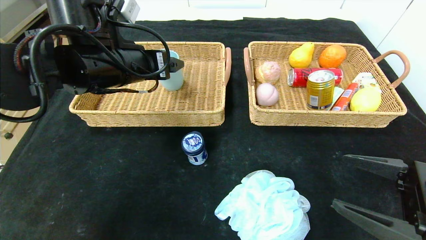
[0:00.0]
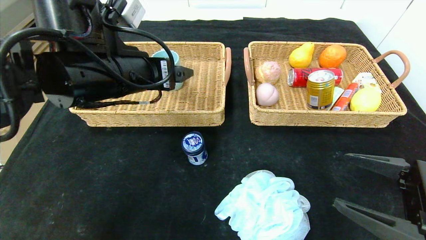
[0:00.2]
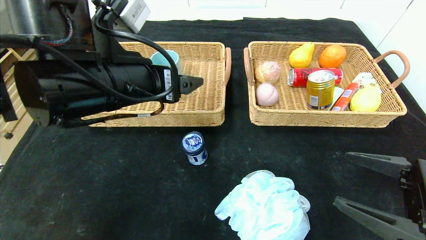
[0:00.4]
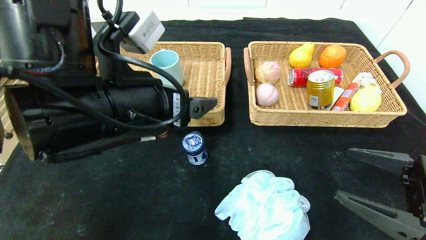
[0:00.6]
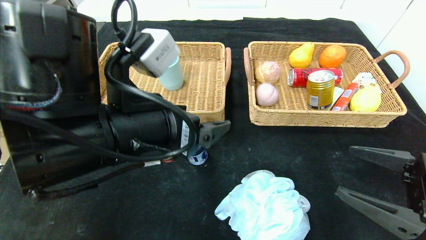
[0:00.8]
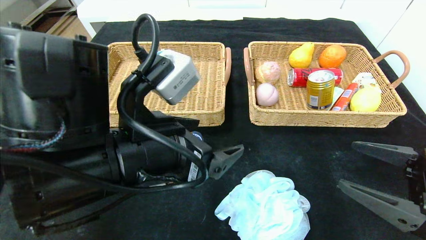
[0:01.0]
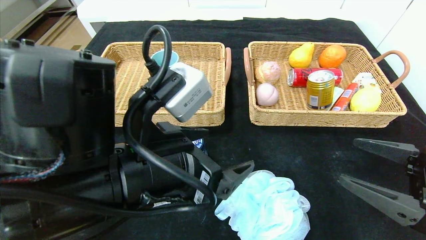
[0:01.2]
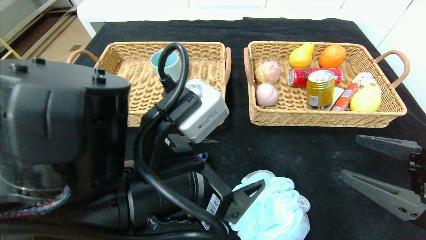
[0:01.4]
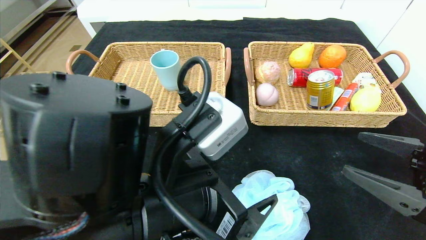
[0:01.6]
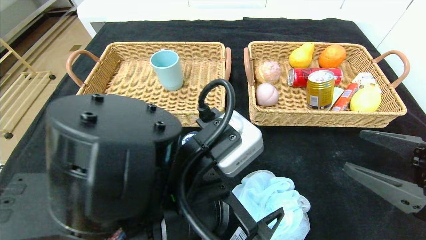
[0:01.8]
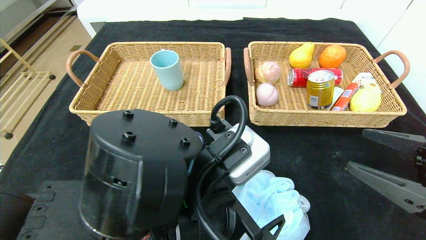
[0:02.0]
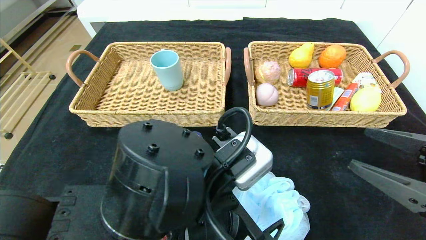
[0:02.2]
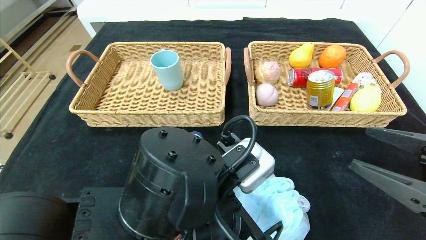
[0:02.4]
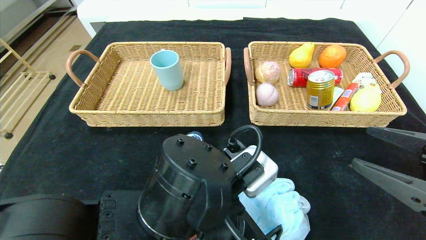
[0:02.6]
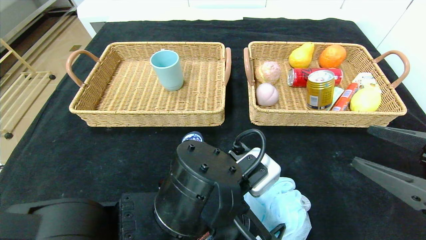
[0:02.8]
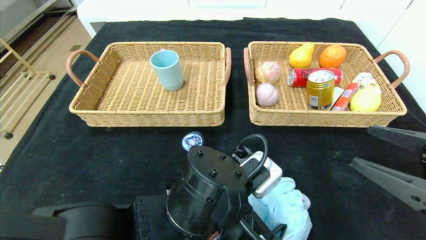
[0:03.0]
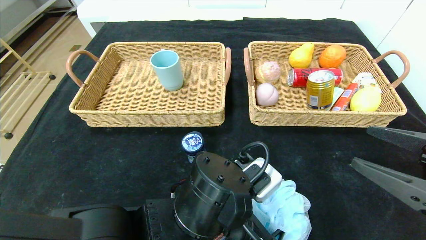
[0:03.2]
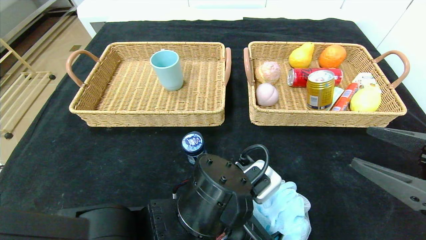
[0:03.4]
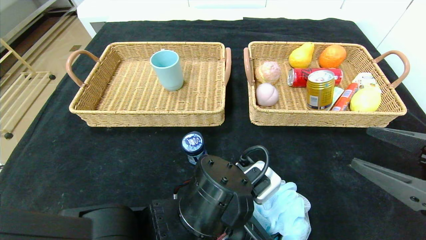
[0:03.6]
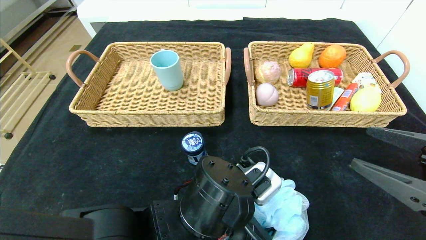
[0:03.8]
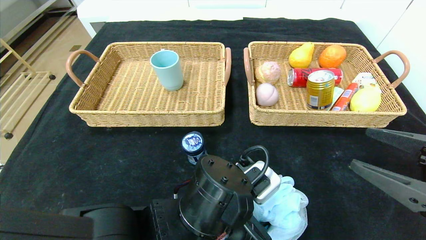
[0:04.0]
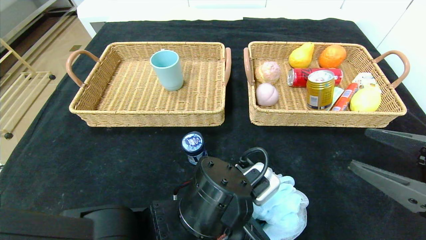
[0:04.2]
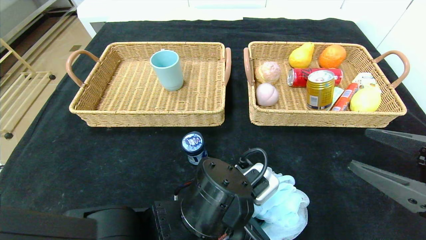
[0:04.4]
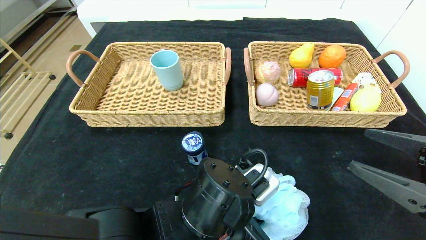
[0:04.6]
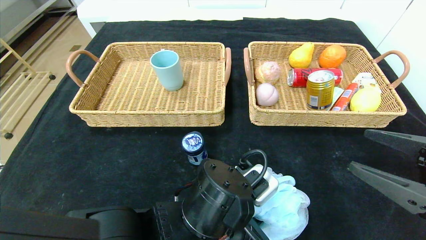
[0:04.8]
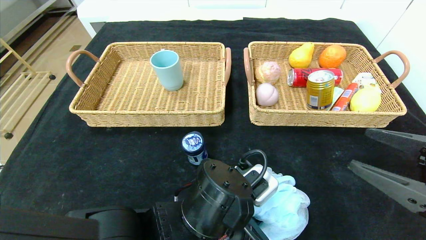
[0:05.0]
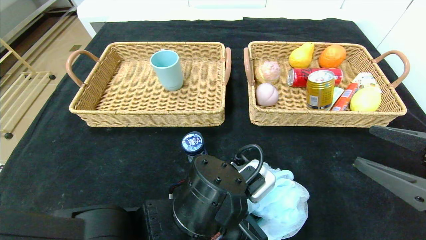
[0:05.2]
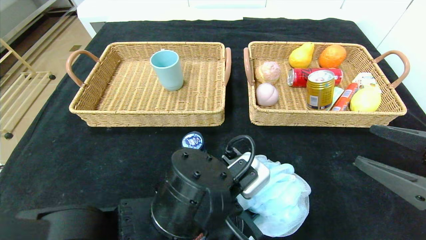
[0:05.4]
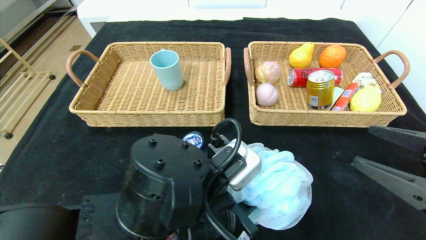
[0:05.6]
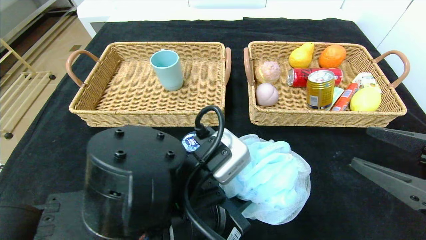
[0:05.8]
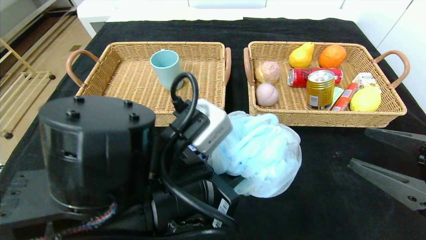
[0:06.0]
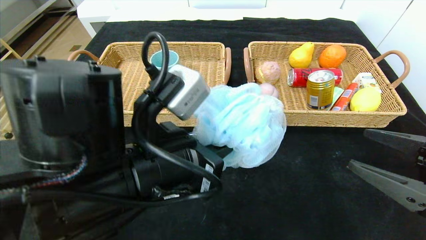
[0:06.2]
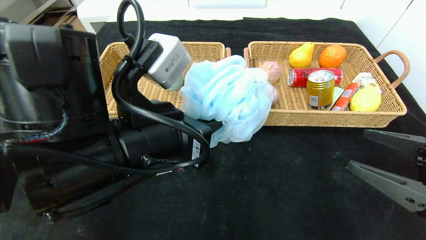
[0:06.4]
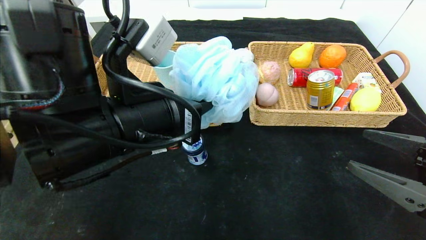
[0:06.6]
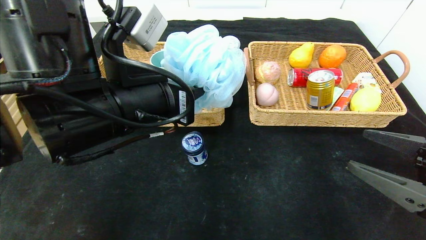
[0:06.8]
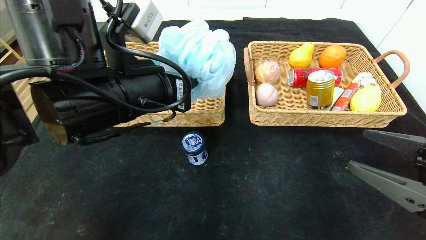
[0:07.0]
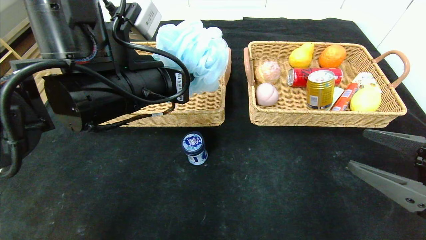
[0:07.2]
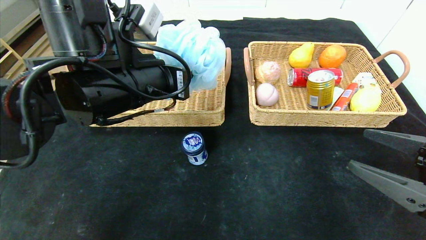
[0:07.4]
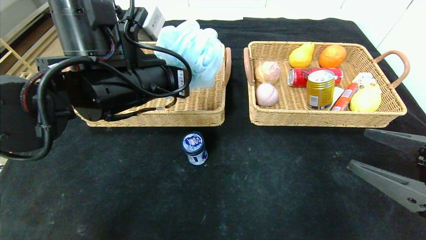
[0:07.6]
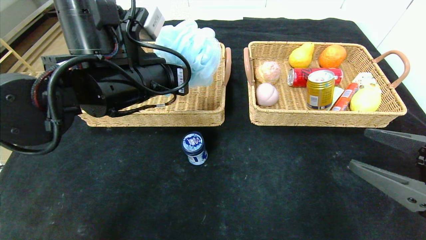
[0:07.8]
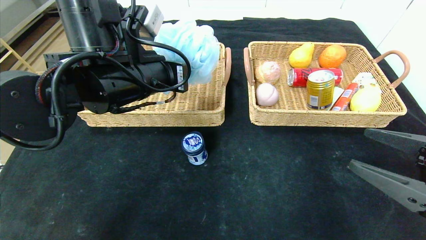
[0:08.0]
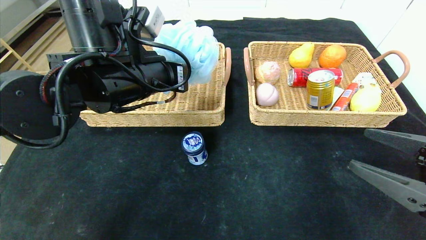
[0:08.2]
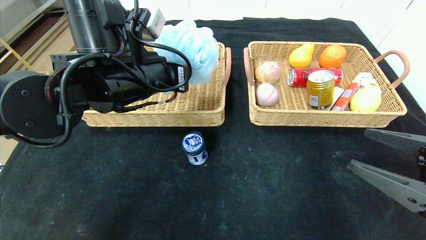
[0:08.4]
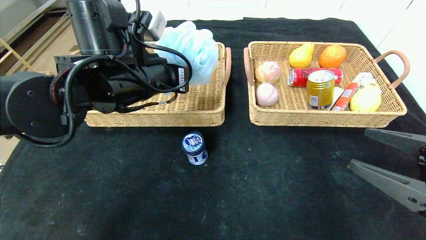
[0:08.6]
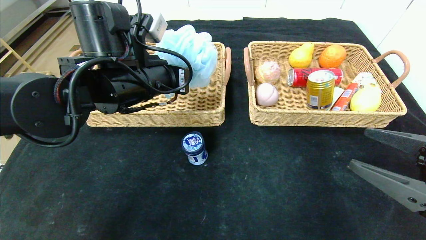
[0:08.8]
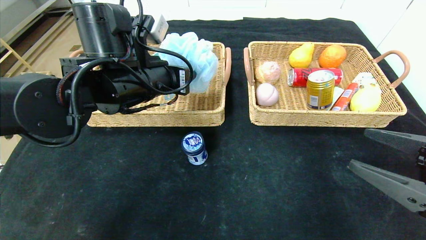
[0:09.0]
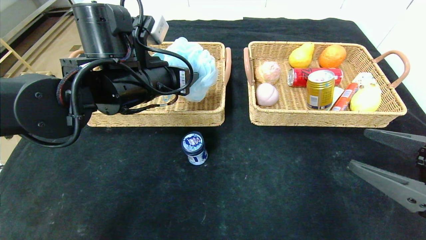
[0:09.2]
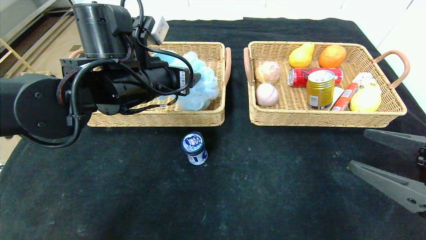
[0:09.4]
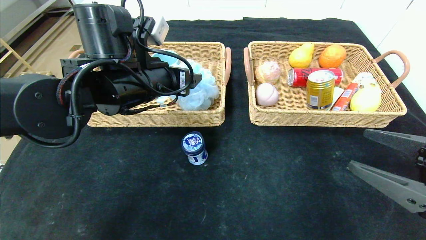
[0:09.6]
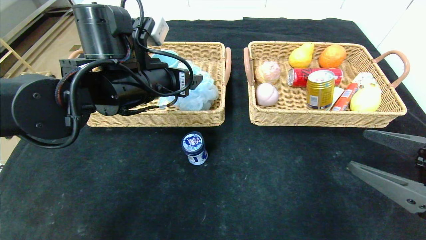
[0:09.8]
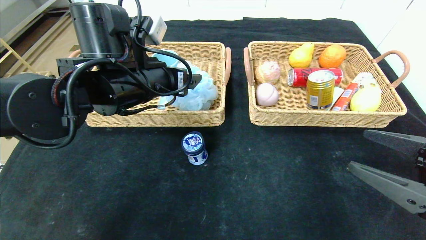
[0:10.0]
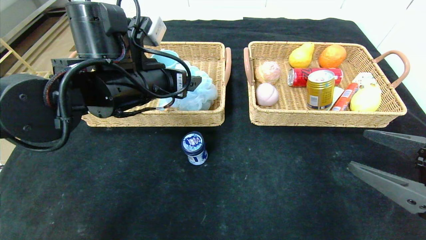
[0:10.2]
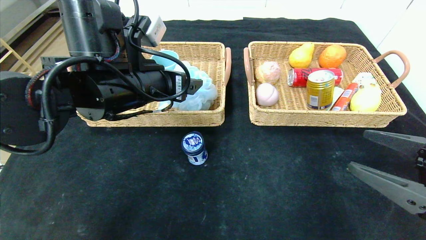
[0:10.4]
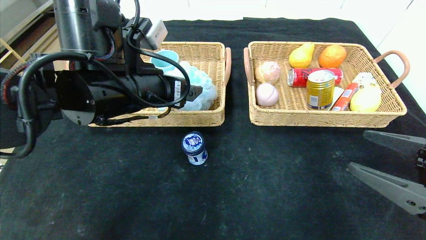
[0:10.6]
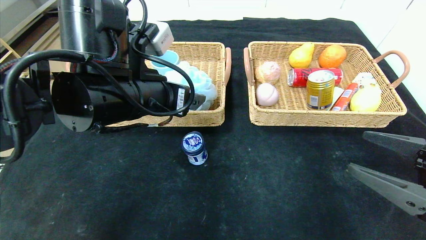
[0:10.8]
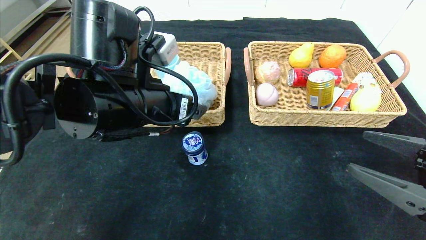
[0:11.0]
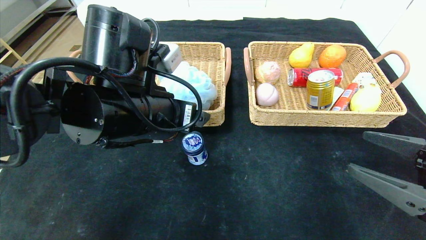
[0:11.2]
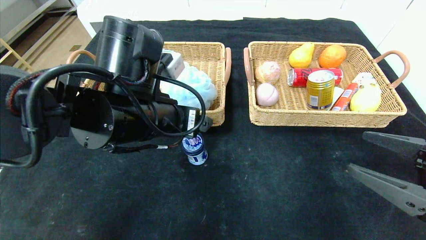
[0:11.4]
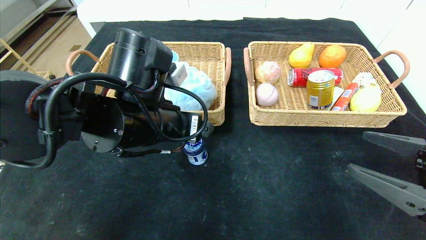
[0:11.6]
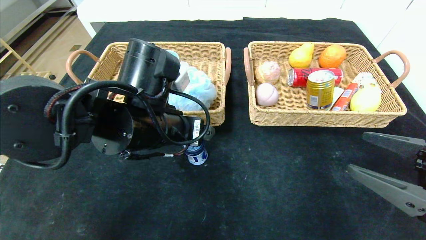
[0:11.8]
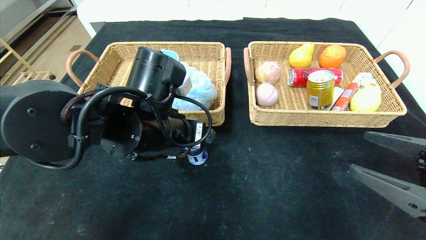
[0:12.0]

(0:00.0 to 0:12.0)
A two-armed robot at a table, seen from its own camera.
Step, 0:00.0 - 0:10.0: Grasp the bath ball and put it in the left basket.
0:00.0 - 0:01.6: The left gripper is displaced backward, to the right and downward by about 20 cm.
0:01.6 - 0:03.0: The left gripper moves downward, approximately 5 cm.
0:03.0 - 0:04.4: The left gripper closes.
0:04.4 - 0:06.0: The left gripper heads upward and to the left, covering approximately 10 cm.
0:06.0 - 0:07.6: The left gripper shifts about 15 cm forward, upward and to the left.
0:07.6 - 0:09.0: The left gripper opens its fingers.
0:09.0 - 0:10.4: The left gripper opens.
0:10.4 - 0:12.0: The left gripper moves downward, some 5 cm.

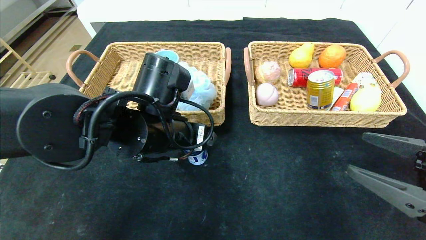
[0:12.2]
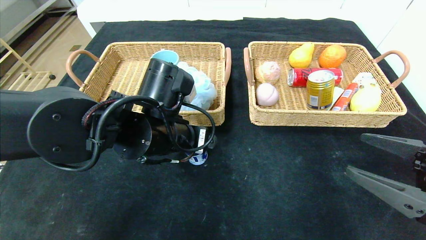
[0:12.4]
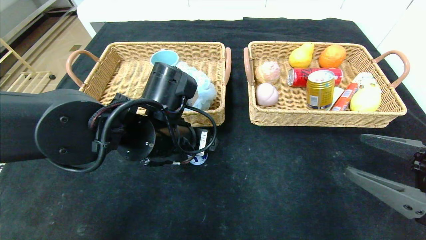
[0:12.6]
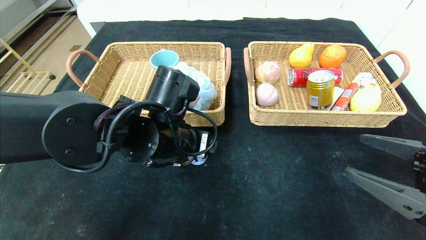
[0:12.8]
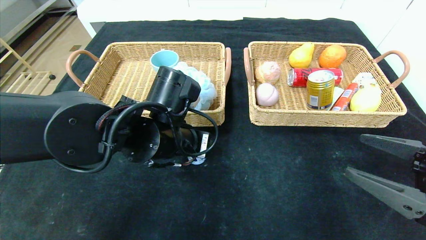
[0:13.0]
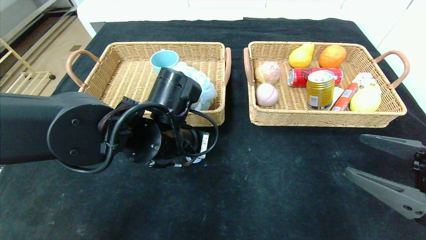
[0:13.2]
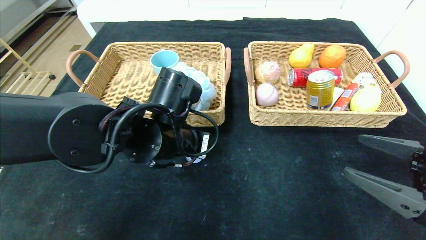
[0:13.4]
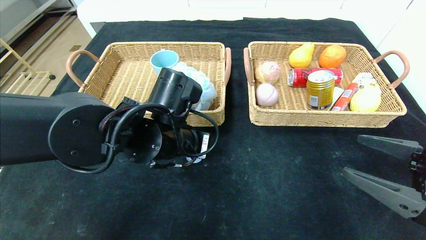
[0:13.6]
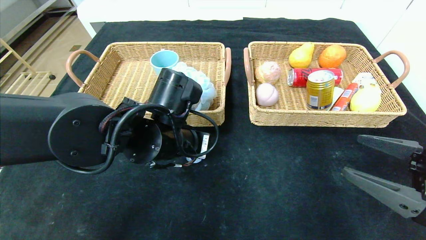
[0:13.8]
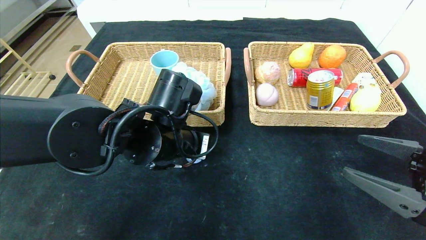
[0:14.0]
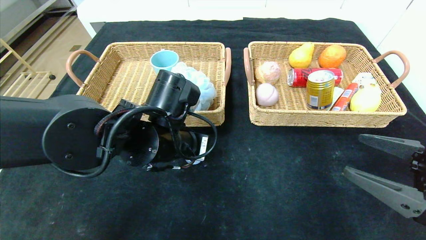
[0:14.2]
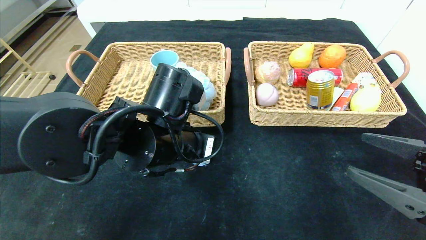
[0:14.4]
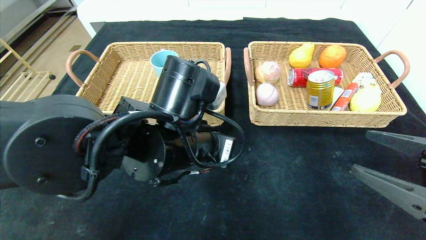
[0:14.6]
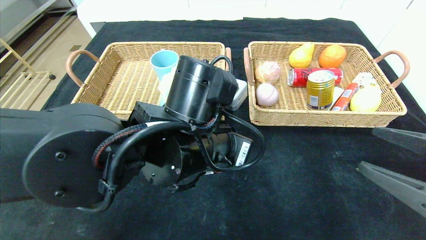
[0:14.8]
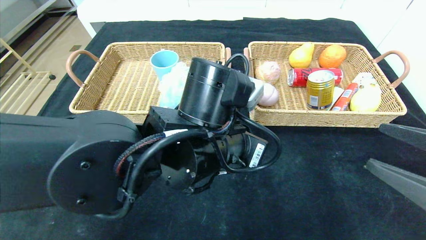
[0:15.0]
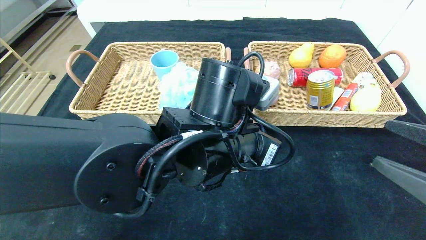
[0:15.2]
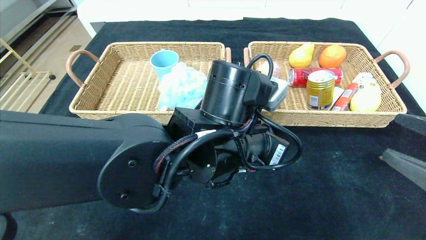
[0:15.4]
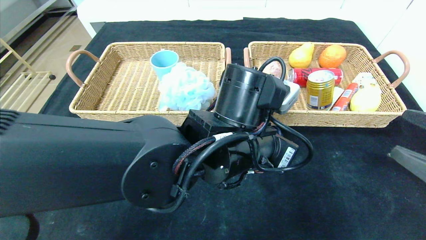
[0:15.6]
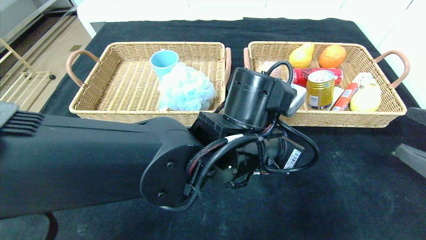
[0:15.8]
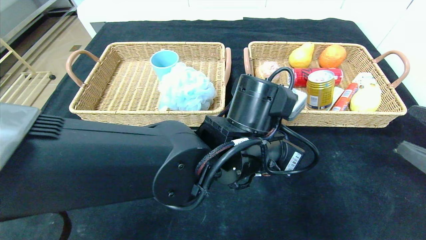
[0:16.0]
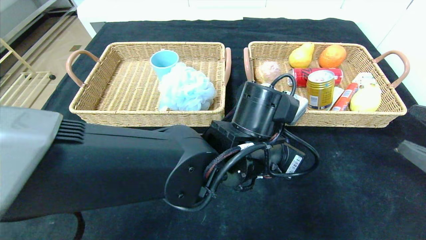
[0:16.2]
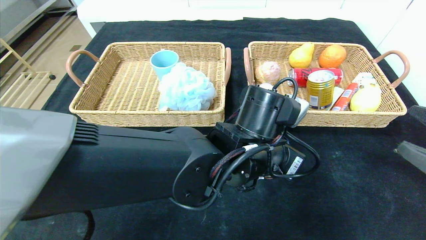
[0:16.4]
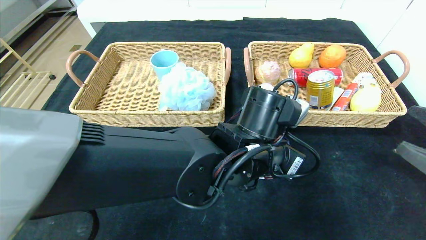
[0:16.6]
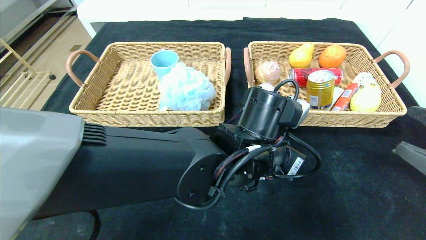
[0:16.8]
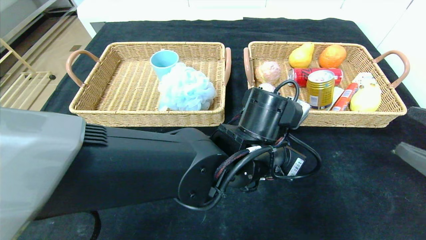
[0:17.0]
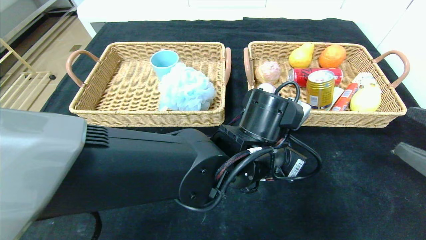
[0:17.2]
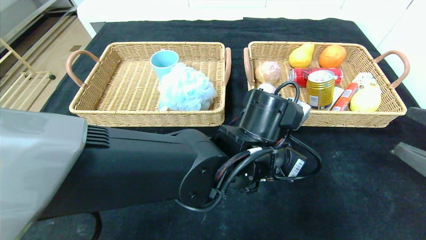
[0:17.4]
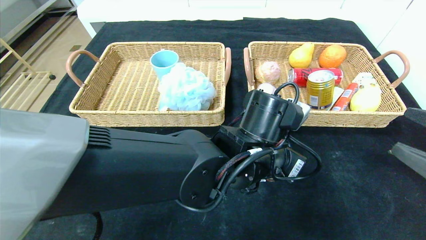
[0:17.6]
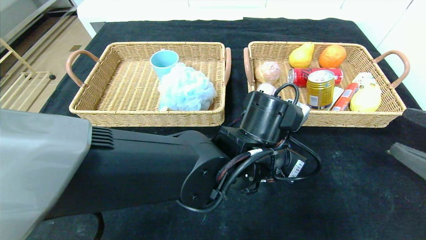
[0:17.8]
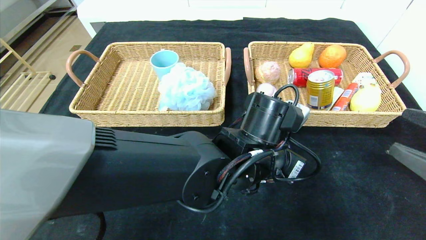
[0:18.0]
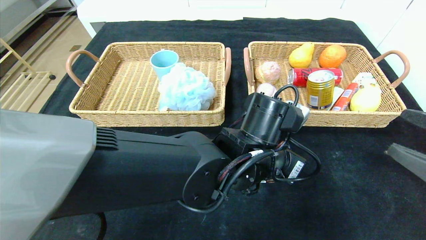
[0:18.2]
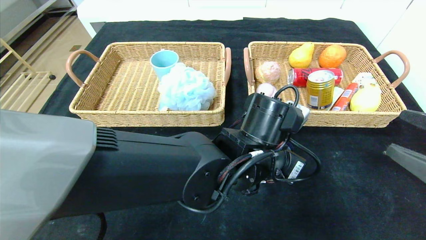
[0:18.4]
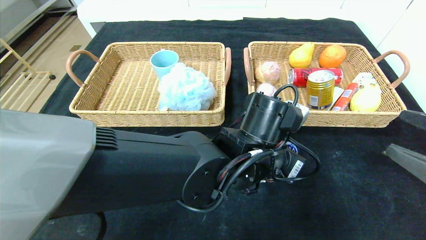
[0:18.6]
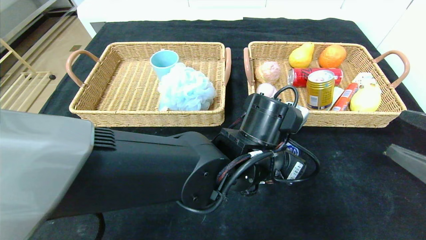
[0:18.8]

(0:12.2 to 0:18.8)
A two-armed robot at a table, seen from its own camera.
0:12.2 - 0:13.8: The left gripper closes.
0:13.8 - 0:15.4: The left gripper heads to the right, covering some 10 cm.
0:15.4 - 0:17.2: The left gripper changes place by approximately 5 cm.
0:17.2 - 0:18.8: The two grippers keep their place.
